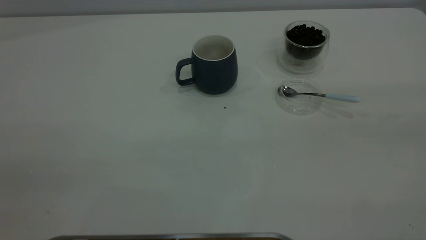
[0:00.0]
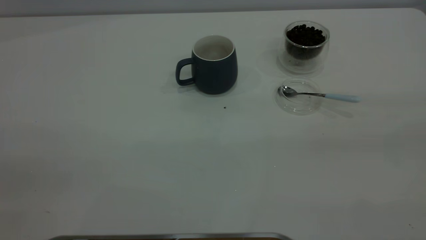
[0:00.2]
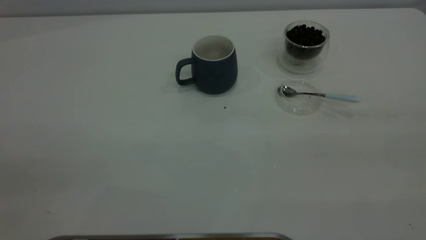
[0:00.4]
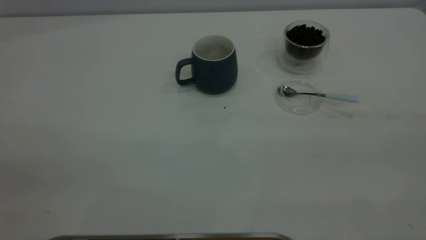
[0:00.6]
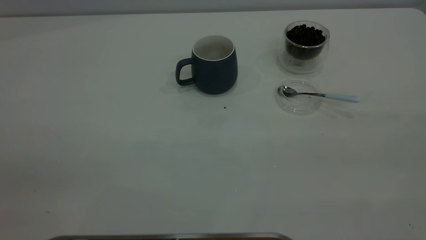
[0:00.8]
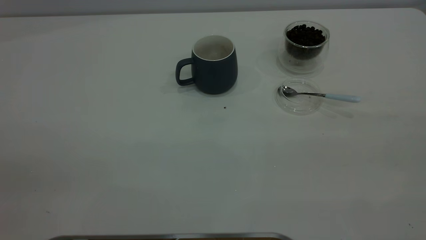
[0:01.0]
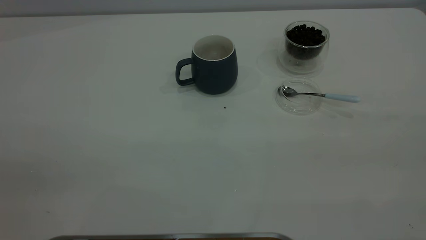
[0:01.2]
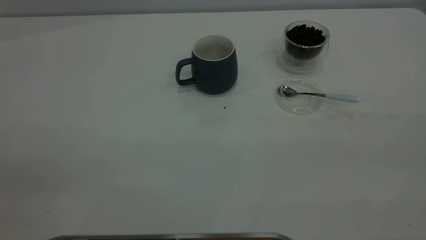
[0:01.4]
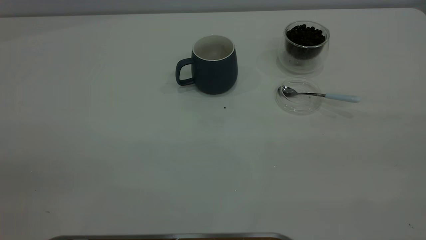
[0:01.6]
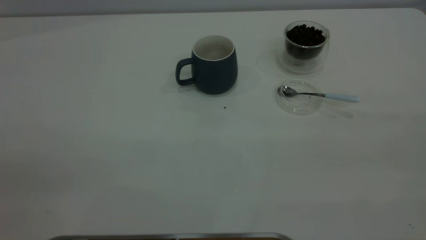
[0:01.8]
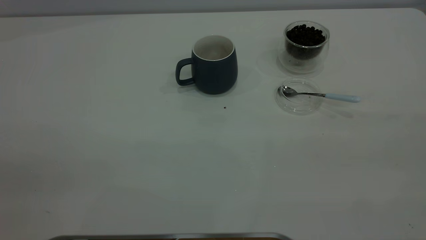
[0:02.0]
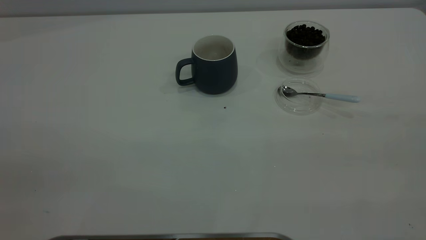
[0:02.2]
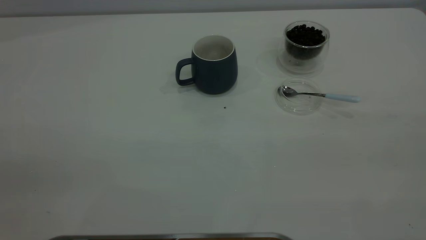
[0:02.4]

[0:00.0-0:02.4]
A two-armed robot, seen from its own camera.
Task of the whole recording: the left gripper place the grey cup in the center of the table, the right gripper take the blue spoon from the cup lid and scoop out the coffee beans from the coffee cup and put them into the grey cup, the right gripper put the spoon back into the cup lid.
0:01.2 to 0:02.4: Neither gripper changes place.
